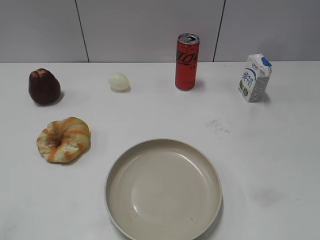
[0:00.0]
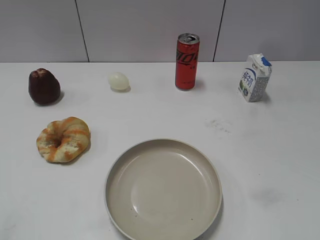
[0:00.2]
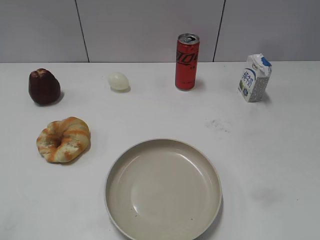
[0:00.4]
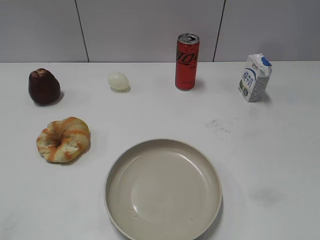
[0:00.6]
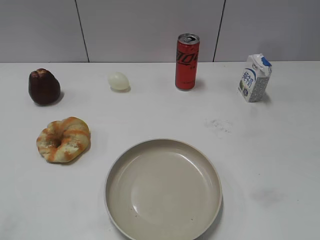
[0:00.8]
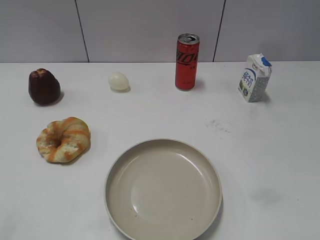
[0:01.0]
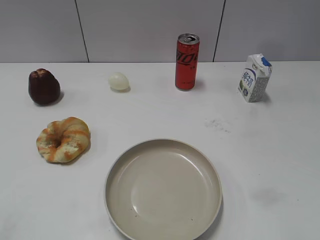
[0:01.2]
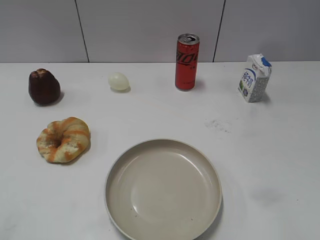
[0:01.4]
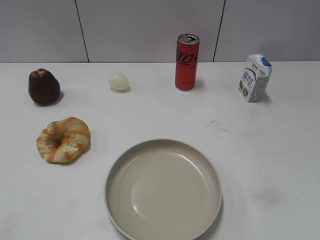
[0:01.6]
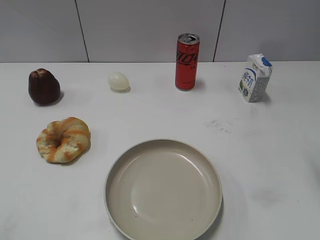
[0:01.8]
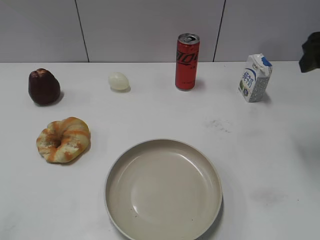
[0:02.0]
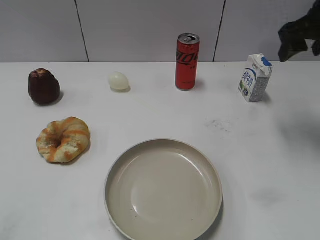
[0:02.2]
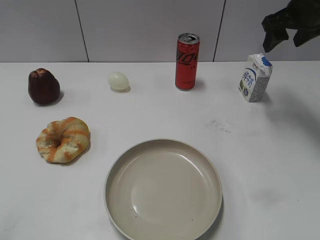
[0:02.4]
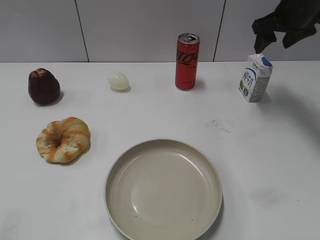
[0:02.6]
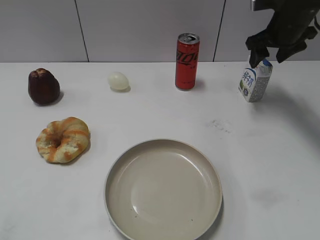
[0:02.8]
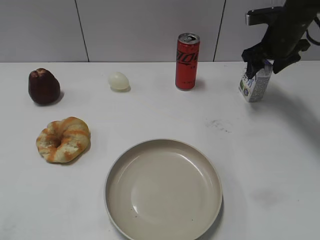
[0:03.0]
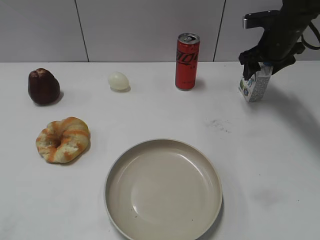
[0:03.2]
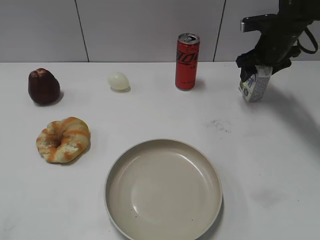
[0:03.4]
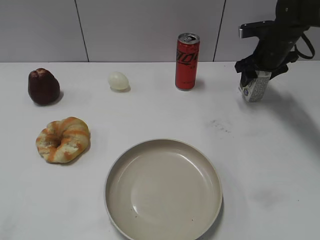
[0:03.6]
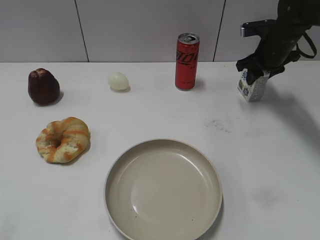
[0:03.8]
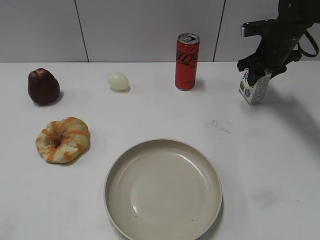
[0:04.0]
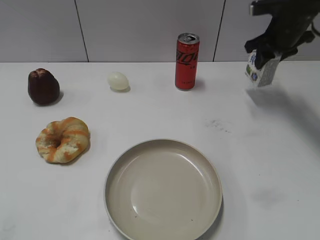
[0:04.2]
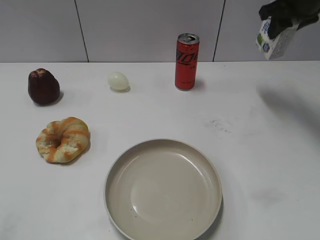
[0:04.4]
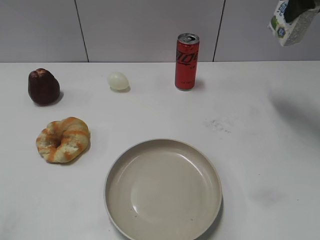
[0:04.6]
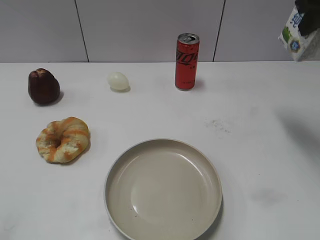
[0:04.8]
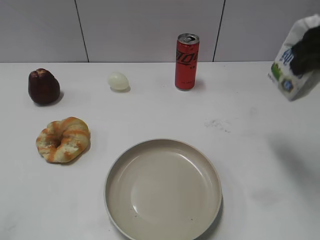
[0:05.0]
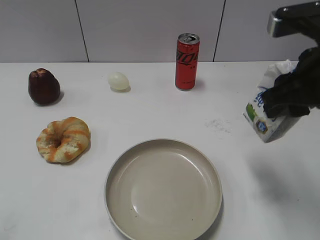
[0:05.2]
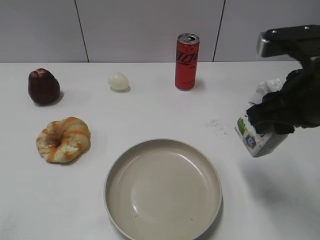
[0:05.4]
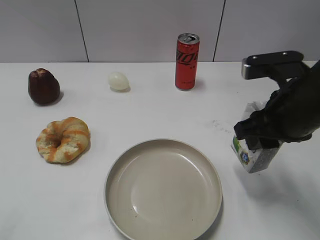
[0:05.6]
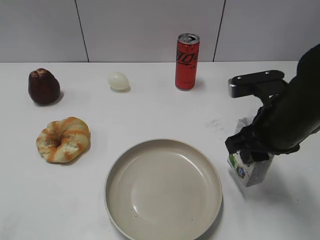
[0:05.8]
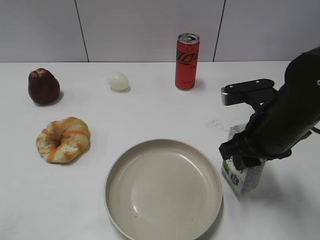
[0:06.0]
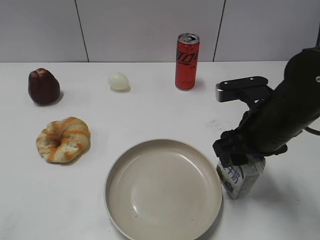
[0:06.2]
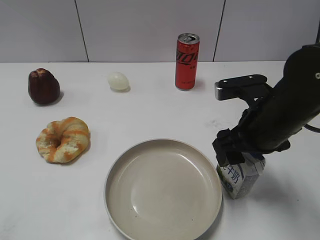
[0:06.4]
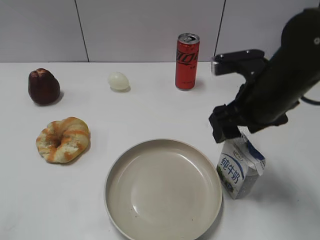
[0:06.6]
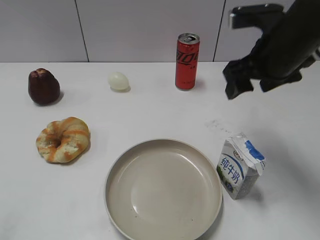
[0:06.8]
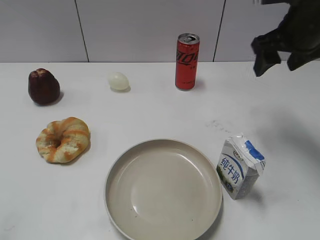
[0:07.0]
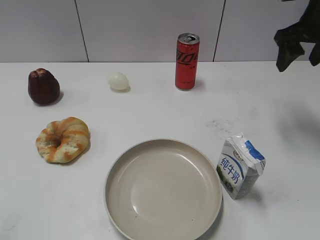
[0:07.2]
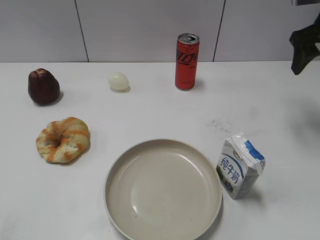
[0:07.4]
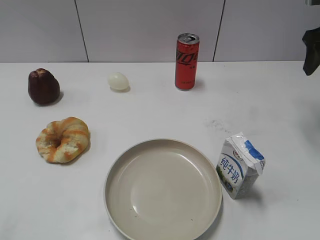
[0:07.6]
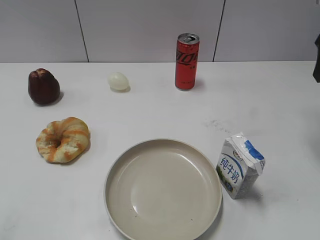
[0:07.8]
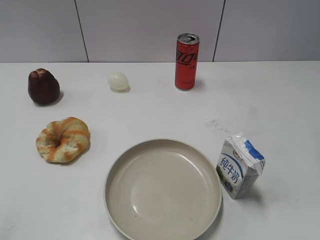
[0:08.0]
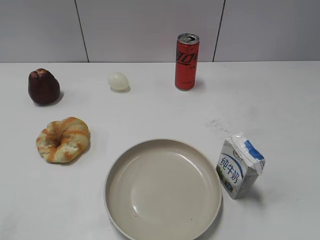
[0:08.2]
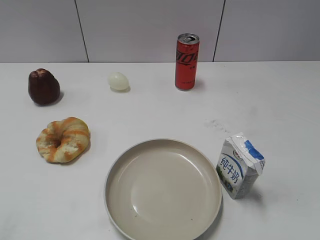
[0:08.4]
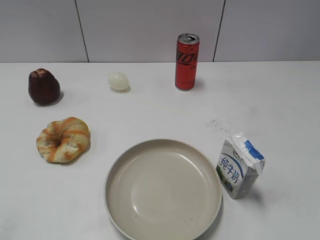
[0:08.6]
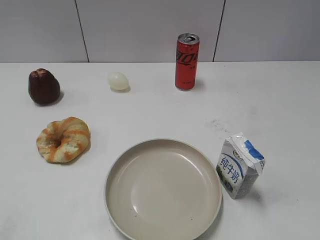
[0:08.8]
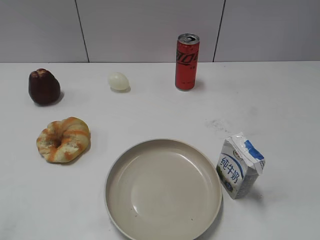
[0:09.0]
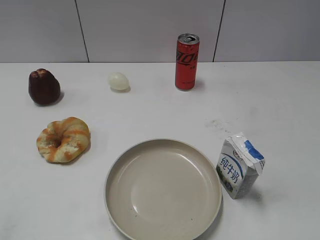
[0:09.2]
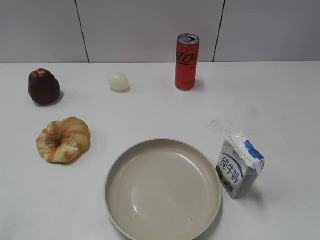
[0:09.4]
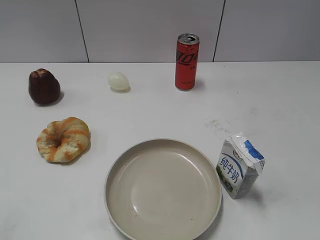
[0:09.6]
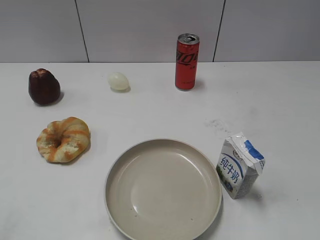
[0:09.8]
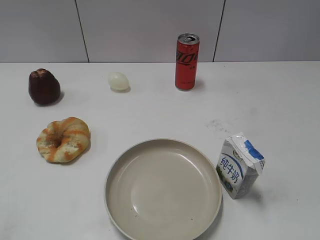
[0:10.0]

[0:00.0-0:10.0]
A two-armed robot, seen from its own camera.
Step, 0:01.0 to 0:03.8: Grasp the milk with right gripper.
Step, 0:04.2 to 0:06.4: Place the milk on the table with right gripper.
0:01.4 to 0:02.8: The right gripper goes approximately 40 cm forward.
0:02.8 to 0:04.2: The right gripper closes up.
0:04.2 to 0:05.8: The right gripper goes approximately 25 cm backward.
0:05.8 to 0:07.2: The right gripper is displaced forward, to the right and upward by some 20 cm, and opens up.
0:07.2 to 0:08.6: The right gripper heads backward, covering approximately 25 cm.
